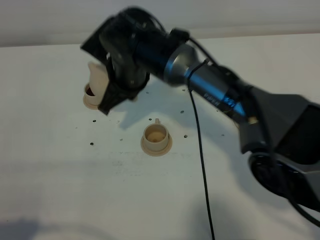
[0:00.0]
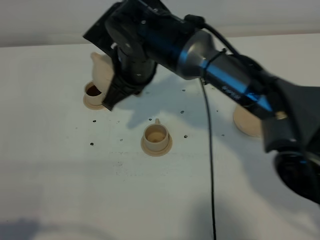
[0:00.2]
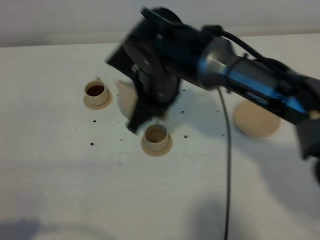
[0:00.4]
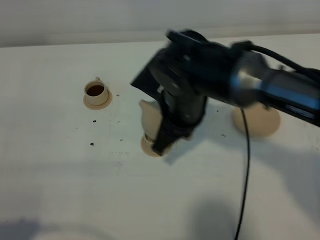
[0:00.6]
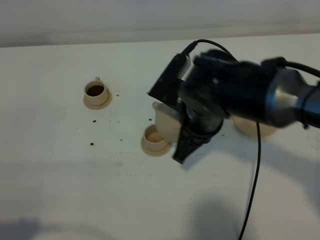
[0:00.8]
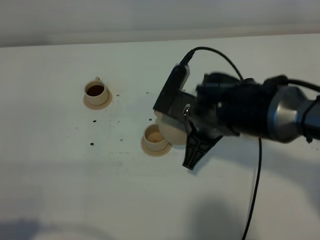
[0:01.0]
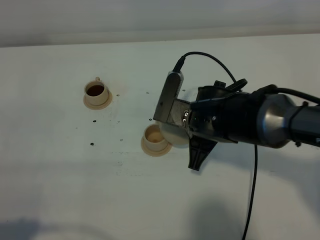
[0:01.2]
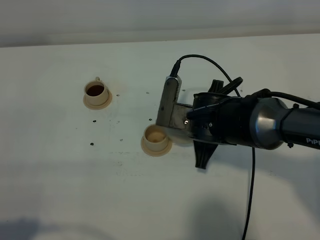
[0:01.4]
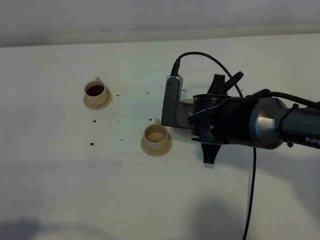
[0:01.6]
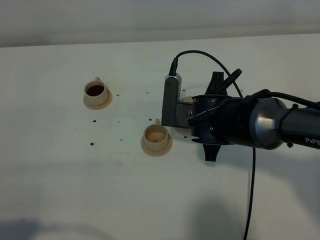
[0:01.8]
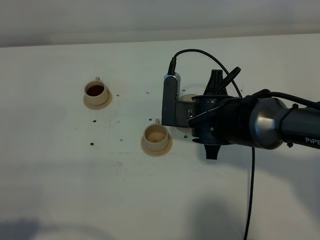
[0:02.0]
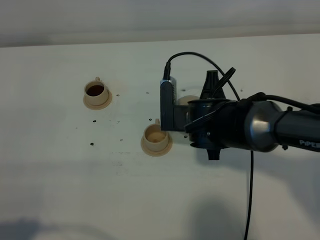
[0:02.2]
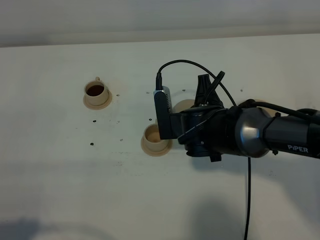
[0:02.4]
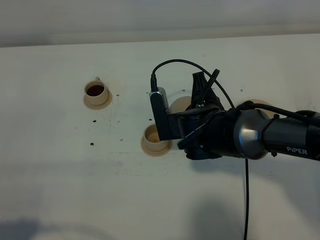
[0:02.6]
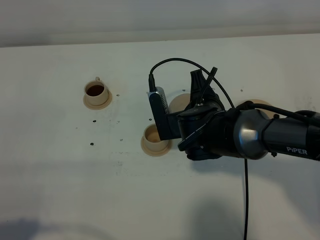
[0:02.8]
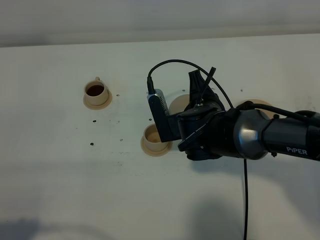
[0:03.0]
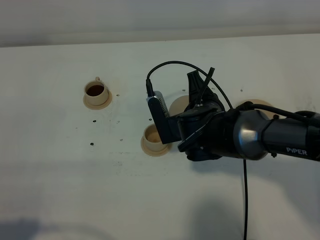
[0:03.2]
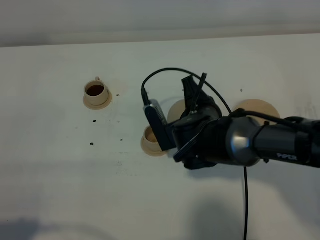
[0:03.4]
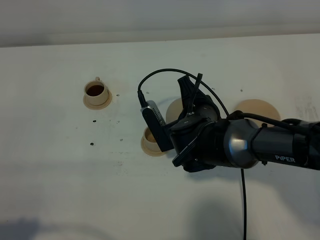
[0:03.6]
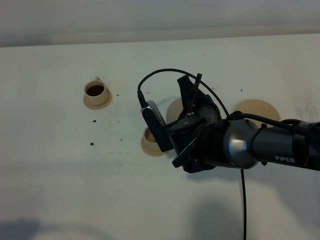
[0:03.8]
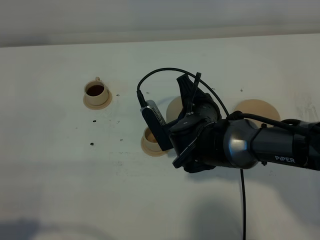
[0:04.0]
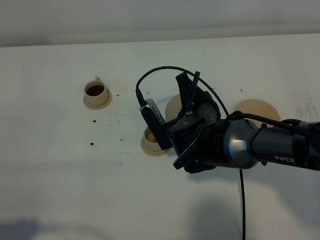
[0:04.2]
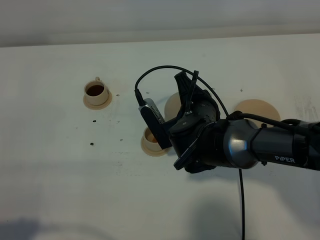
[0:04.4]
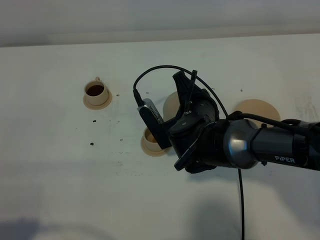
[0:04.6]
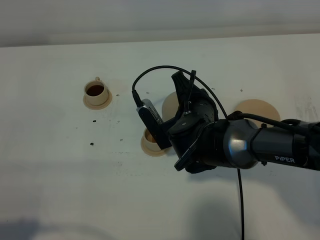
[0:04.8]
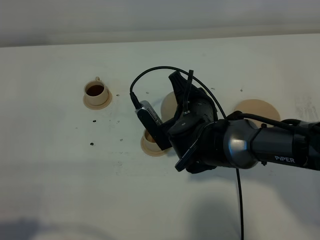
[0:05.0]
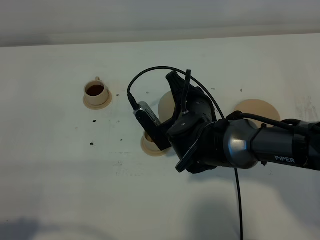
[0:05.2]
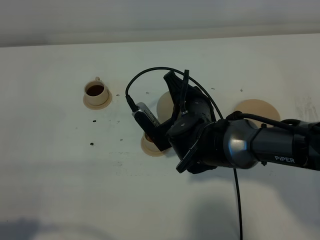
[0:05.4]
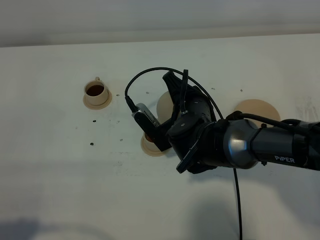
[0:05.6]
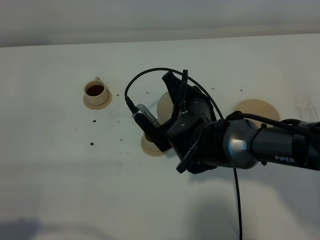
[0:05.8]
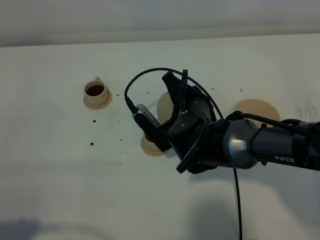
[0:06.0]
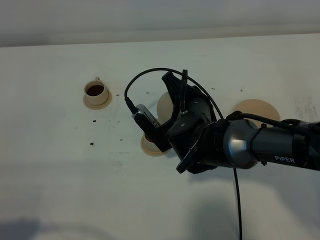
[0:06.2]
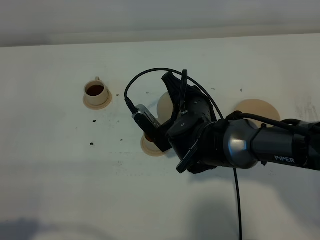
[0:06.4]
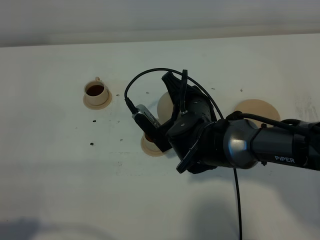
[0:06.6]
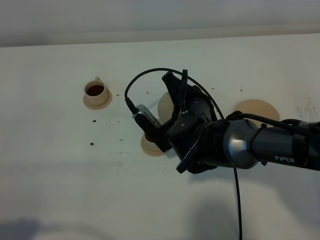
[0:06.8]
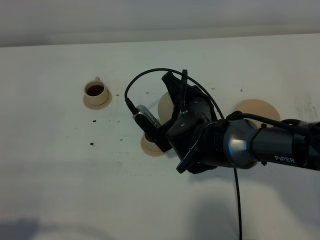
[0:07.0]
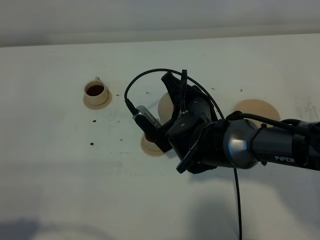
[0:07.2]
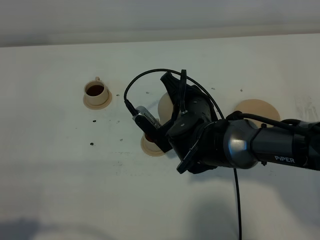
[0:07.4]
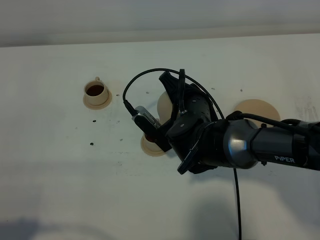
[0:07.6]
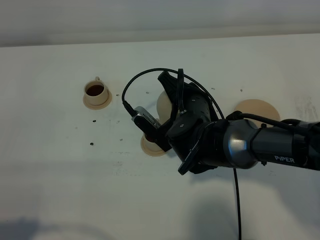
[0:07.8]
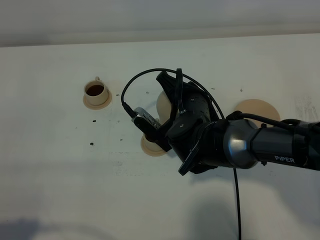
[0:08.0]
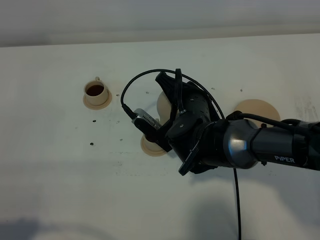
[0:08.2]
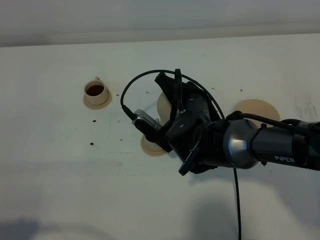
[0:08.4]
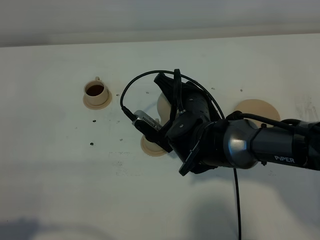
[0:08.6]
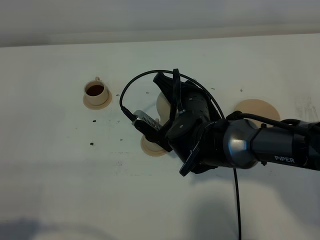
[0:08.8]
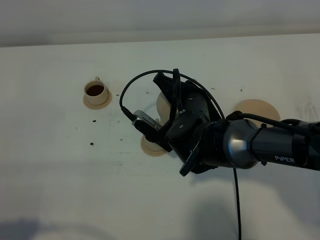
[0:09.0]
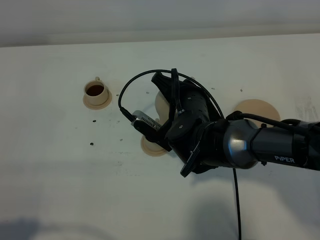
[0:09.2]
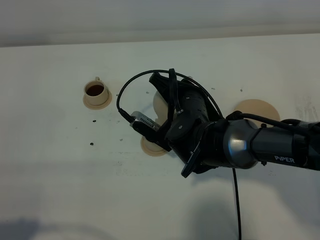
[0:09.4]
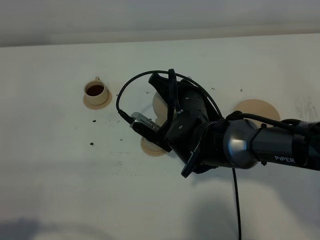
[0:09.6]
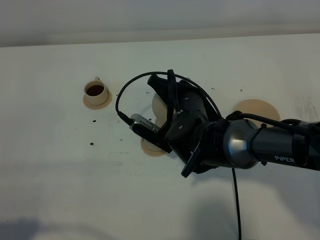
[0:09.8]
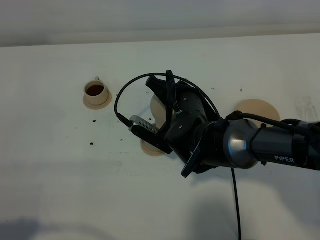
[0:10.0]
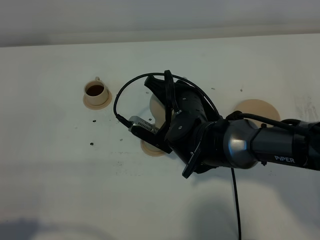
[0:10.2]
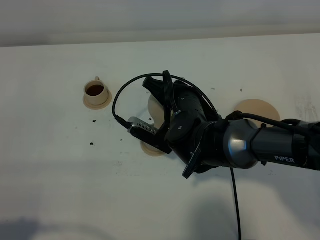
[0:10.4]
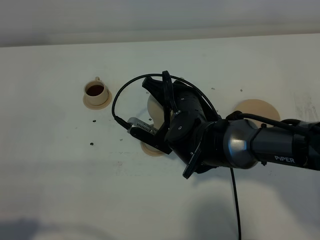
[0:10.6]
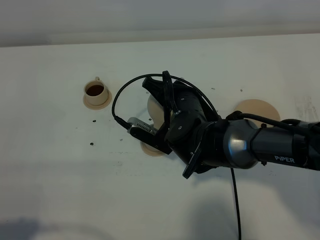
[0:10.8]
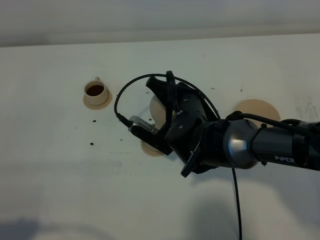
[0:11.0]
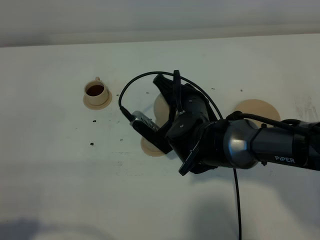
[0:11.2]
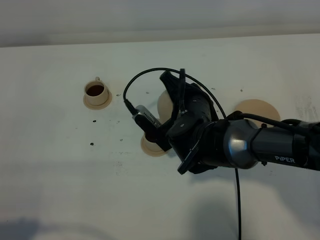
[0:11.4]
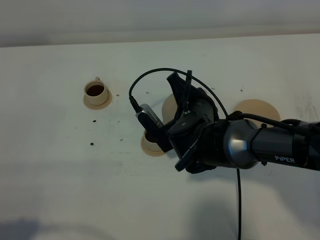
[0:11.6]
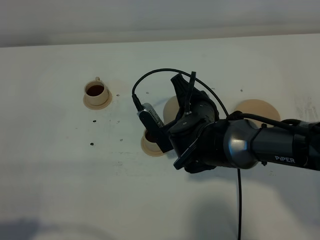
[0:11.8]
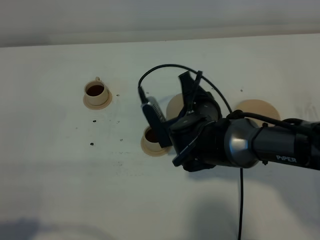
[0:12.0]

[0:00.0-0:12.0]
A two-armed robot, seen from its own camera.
Task of the whole recording: grasp the brown teapot and pour the tea into the two brown teacups one by one, put the brown teapot back in its original place.
Step, 0:00.0 to 0:11.6: Pour tea into the teacup with the right gripper.
0:00.0 to 0:01.6: The right gripper shifts about 15 cm to the right, downward and backward.
0:03.0 to 0:04.4: There are only small adjustments of the grippers.
0:04.4 to 0:06.0: The grippers stay close to where they were, moving slightly.
0:06.0 to 0:07.6: Both grippers stay put.
0:07.6 to 0:10.4: The grippers stay close to where they were, moving slightly.

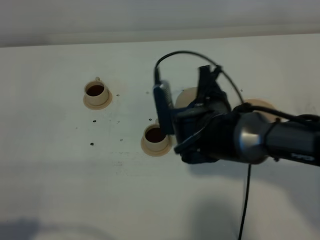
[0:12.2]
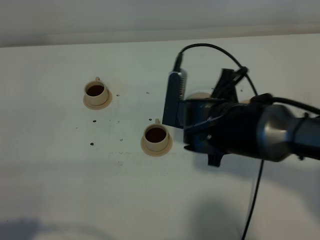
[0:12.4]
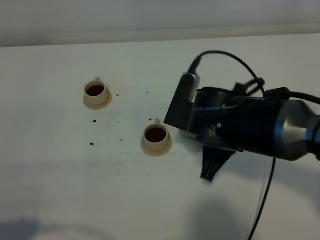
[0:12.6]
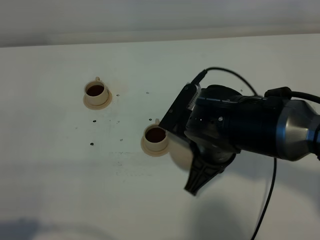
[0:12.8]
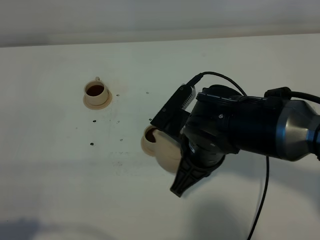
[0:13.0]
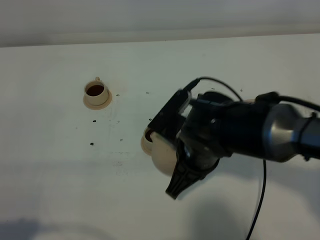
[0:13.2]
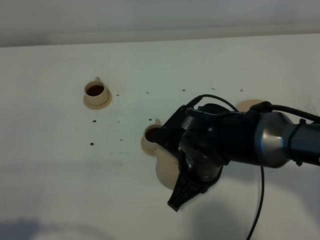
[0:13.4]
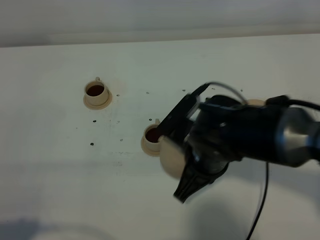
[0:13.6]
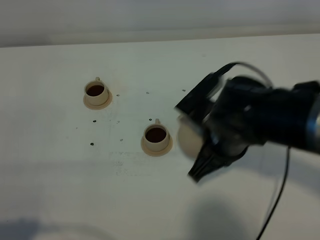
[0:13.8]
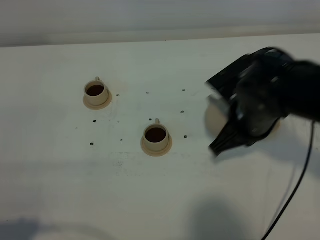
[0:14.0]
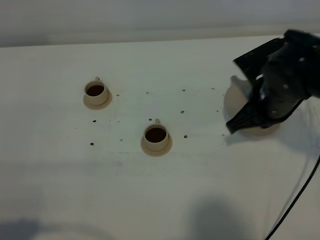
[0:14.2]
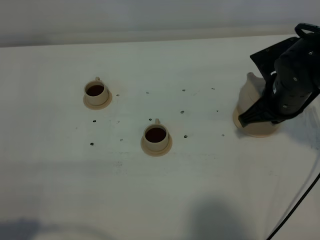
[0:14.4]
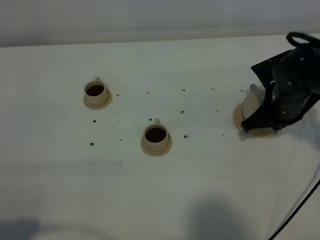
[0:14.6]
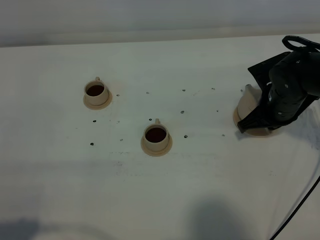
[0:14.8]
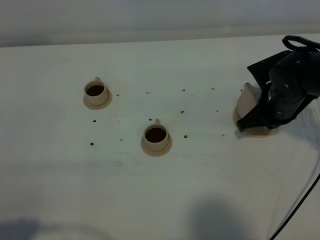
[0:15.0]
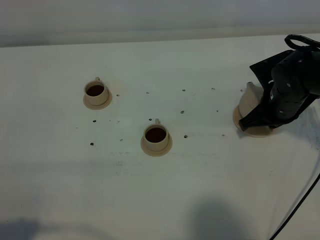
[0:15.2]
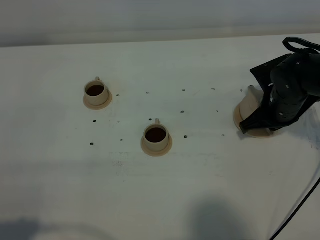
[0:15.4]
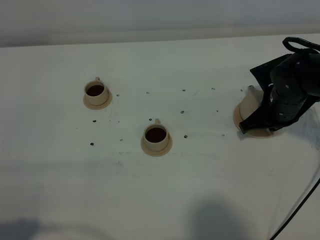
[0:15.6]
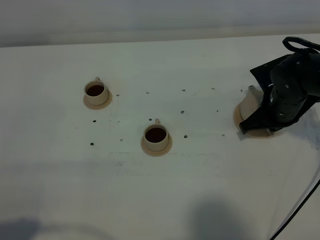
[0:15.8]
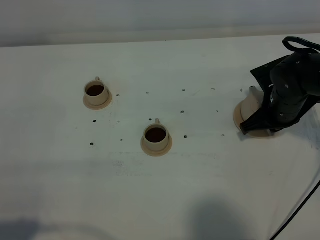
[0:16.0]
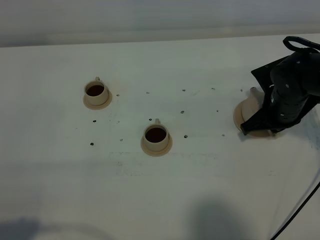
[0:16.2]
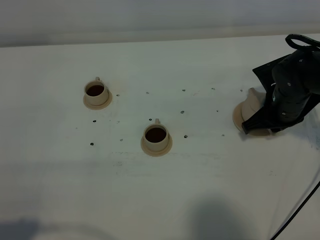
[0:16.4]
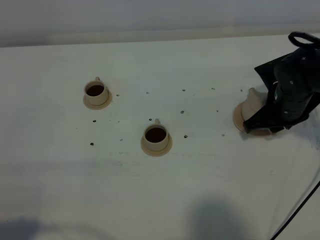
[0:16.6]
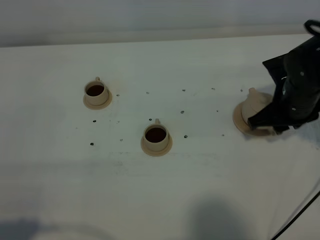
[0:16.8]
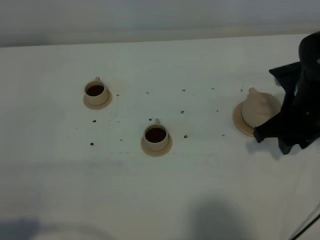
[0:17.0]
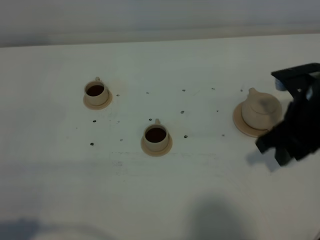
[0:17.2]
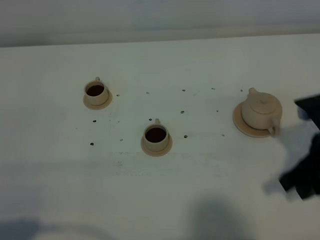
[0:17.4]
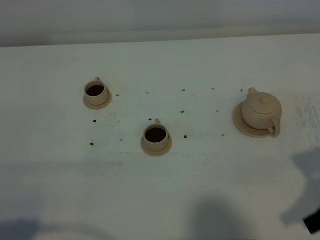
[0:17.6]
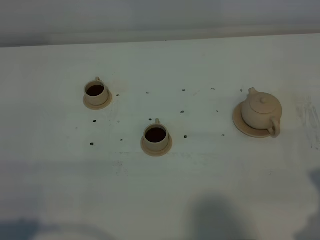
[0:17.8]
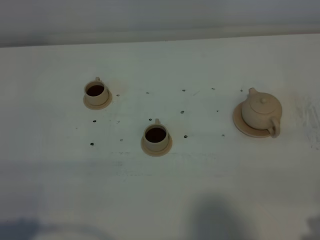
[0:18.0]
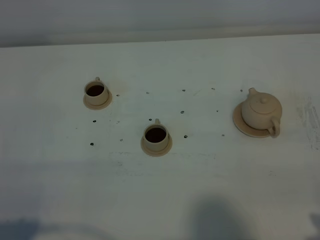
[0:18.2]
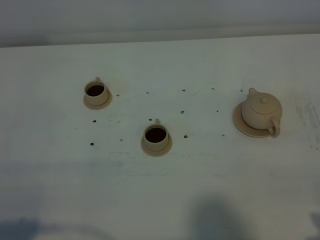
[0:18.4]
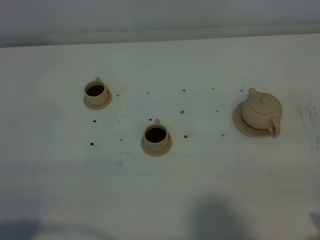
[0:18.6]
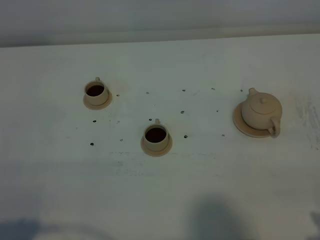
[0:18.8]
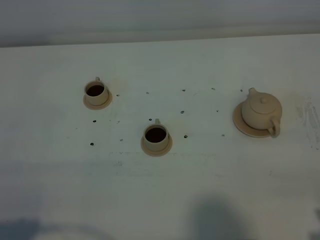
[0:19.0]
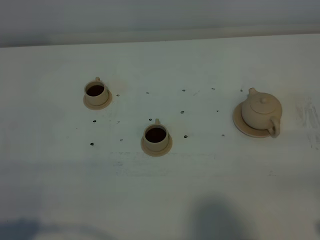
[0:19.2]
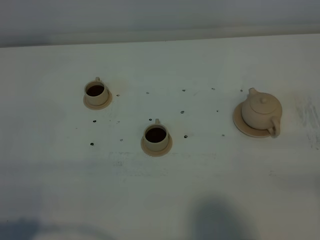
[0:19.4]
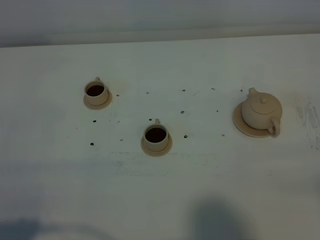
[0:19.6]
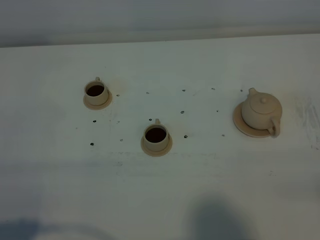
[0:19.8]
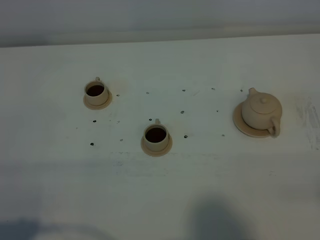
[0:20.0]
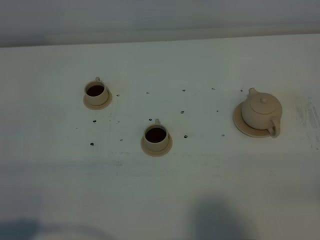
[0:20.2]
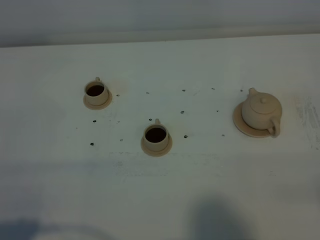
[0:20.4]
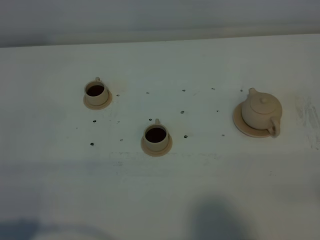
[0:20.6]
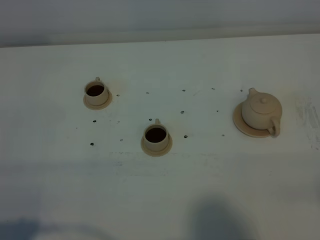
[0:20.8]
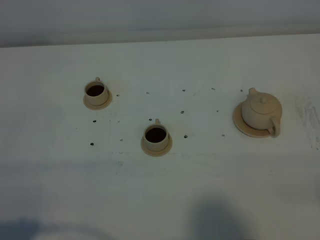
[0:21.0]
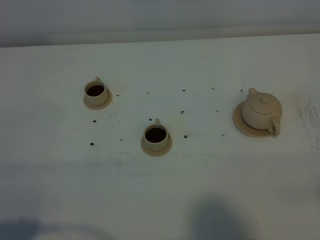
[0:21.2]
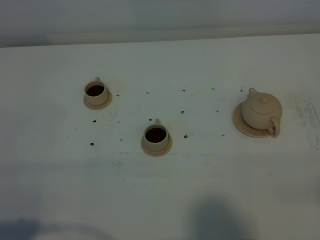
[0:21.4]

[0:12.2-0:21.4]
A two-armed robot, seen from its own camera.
Task of the whole recording: grasp the brown teapot and pour the tea into the two brown teacups one by one, put the brown teapot back in its original place.
0:12.2 to 0:13.8: The right gripper ends up roughly 5 cm from where it was.
0:13.8 to 0:15.2: The right gripper goes roughly 15 cm to the right, forward and downward.
0:15.2 to 0:16.8: The right gripper changes place by some 5 cm, and opens its fingers.
0:16.8 to 0:18.4: The right gripper goes roughly 25 cm backward.
0:19.8 to 0:21.4: Neither gripper changes place.
